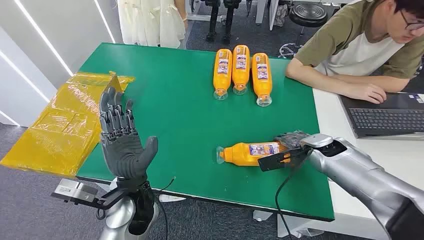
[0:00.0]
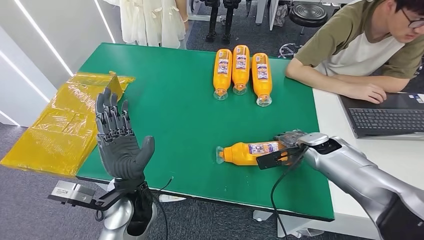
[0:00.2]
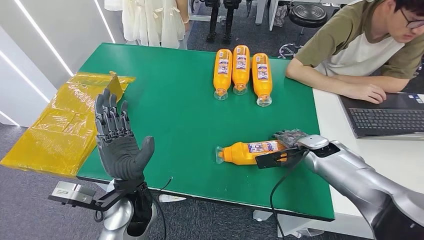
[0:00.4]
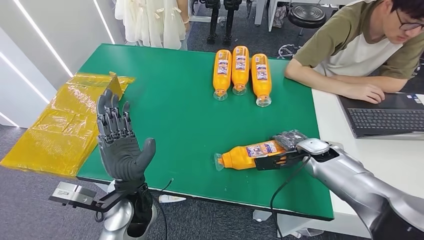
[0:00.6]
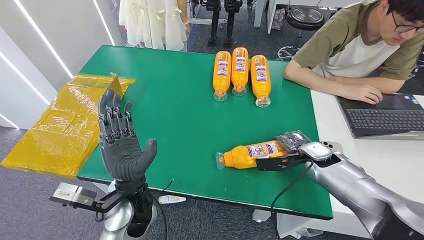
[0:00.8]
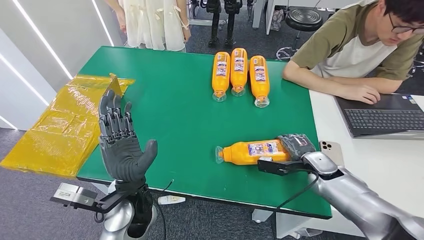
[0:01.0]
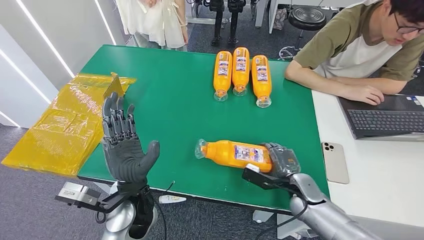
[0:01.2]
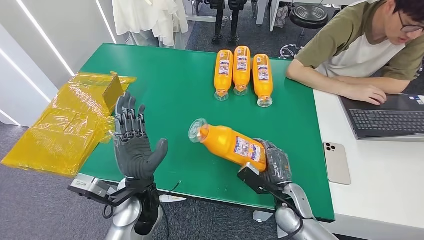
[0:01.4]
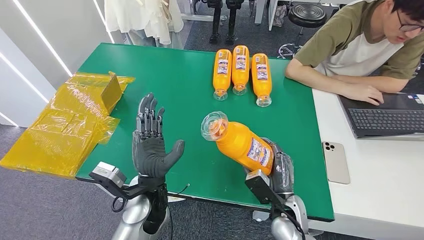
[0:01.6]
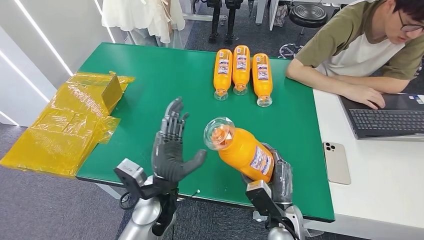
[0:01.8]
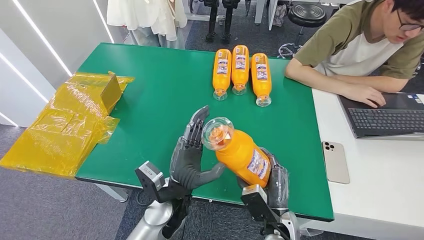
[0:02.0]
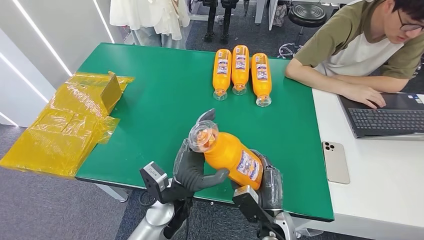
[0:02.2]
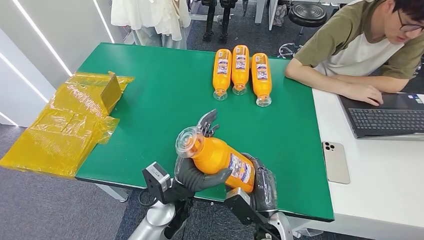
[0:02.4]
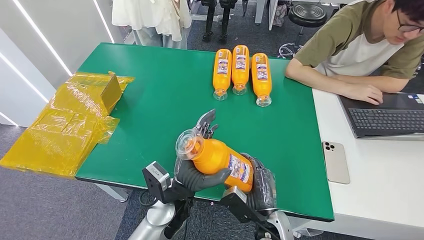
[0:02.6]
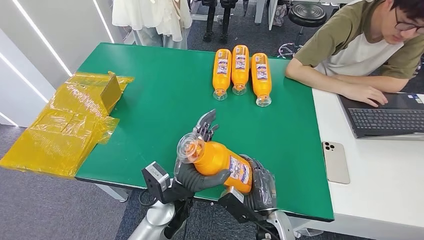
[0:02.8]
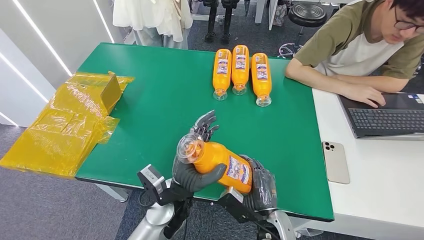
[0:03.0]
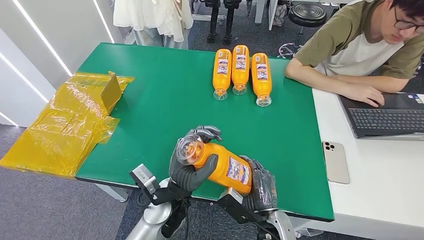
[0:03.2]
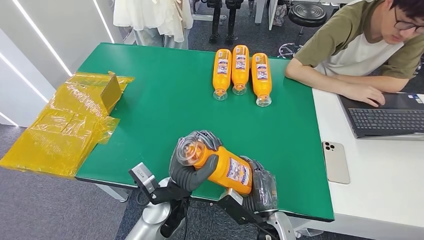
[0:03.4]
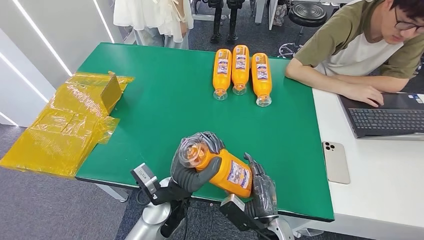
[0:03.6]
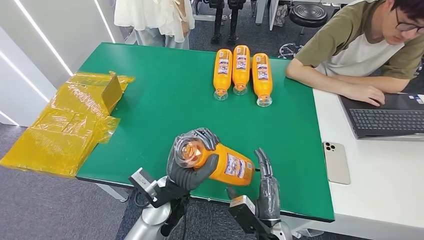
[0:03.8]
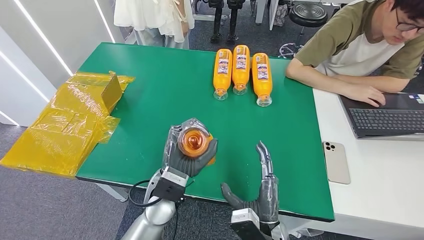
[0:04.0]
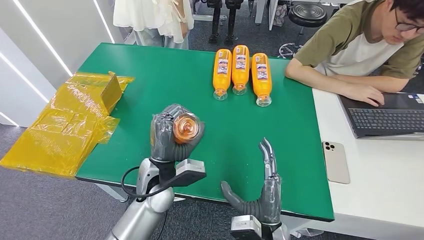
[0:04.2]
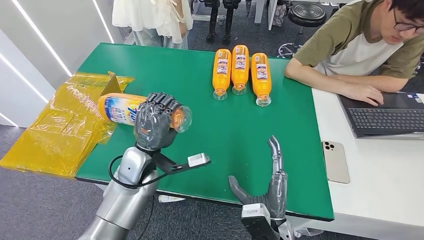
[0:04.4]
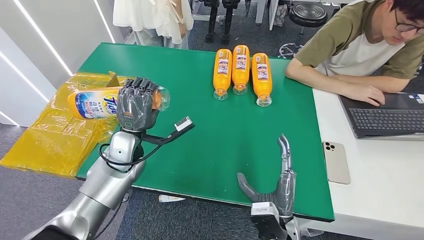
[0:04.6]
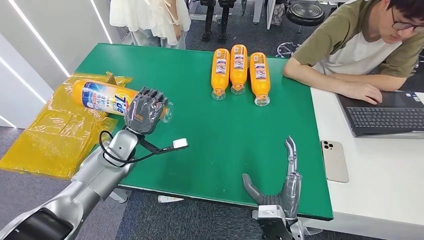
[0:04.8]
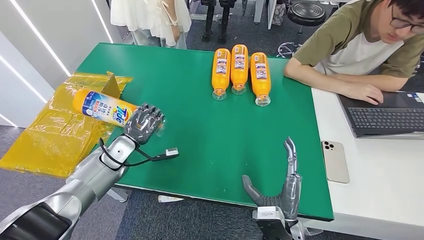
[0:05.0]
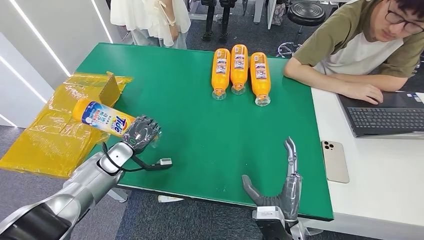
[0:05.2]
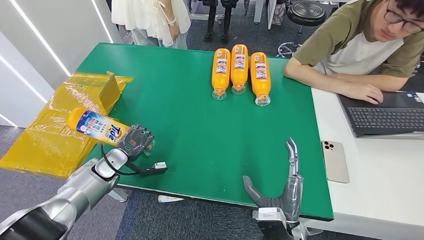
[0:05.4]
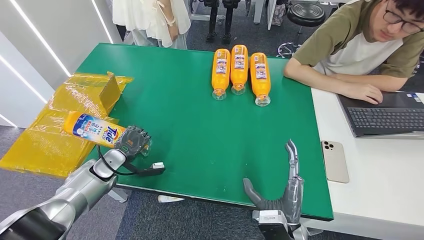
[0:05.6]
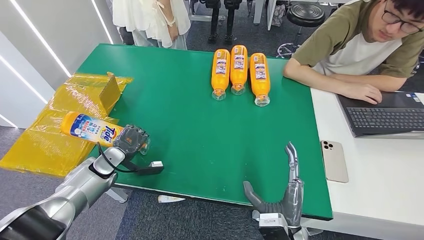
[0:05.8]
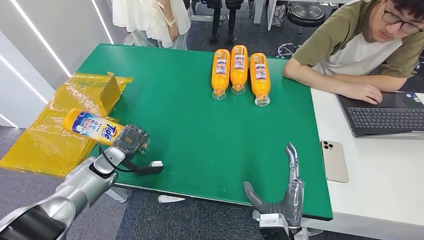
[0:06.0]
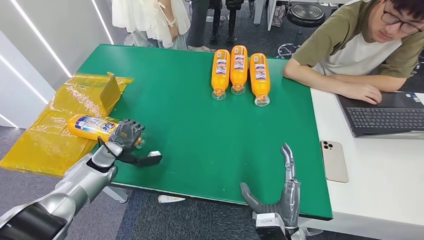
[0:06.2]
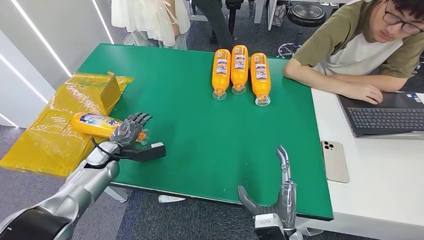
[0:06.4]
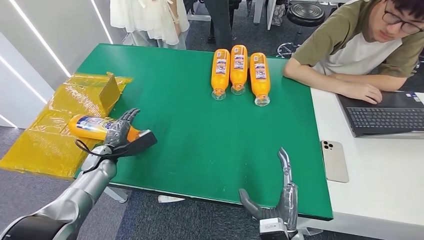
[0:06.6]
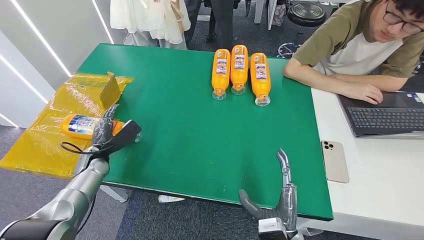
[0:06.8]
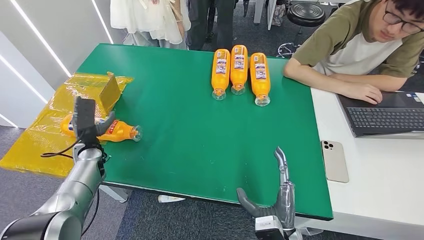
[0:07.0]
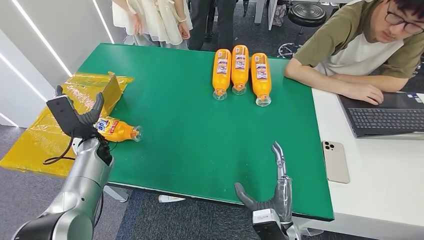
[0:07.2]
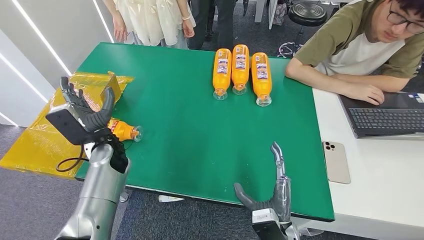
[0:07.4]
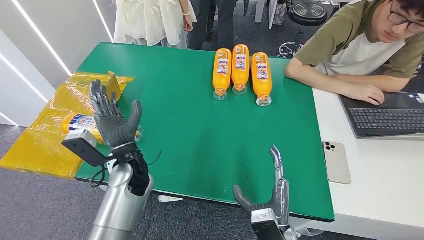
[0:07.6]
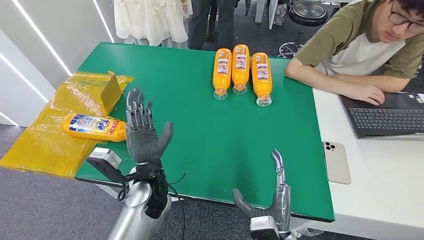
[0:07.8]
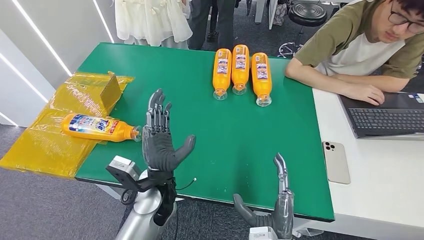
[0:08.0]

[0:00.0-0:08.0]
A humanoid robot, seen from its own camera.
Step, 0:00.0 to 0:01.8: Pick up the bottle from the table.
Step, 0:02.0 to 0:08.0: Turn the bottle to the front side.
0:01.6 to 0:03.2: The right hand ends up some 5 cm from where it was.
0:04.8 to 0:06.4: The left hand shifts about 10 cm to the left and downward.
0:06.4 to 0:08.0: The left hand is displaced to the right by roughly 25 cm.

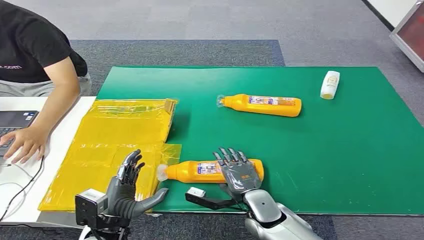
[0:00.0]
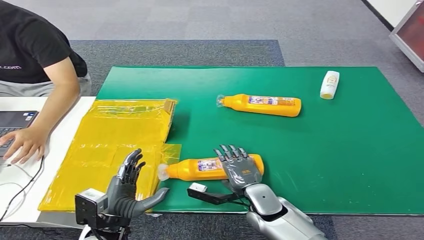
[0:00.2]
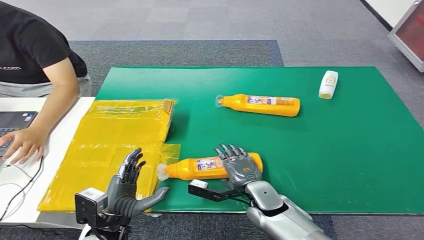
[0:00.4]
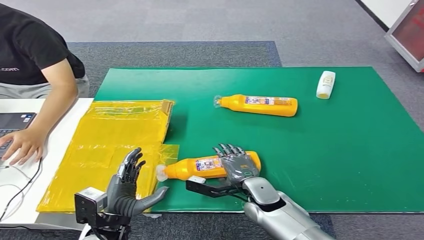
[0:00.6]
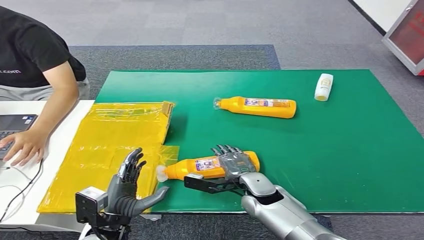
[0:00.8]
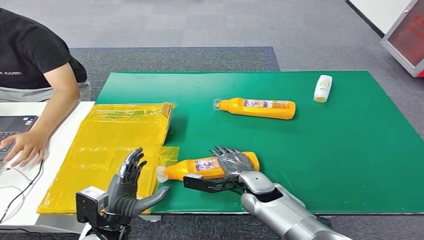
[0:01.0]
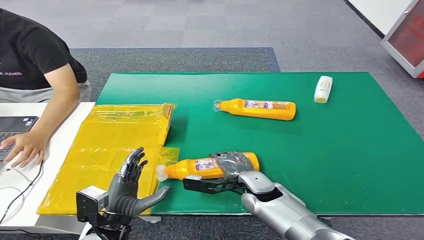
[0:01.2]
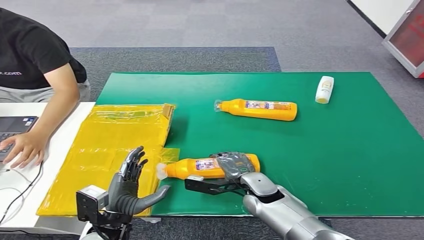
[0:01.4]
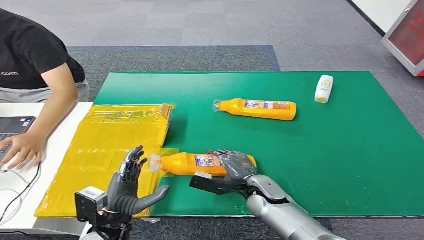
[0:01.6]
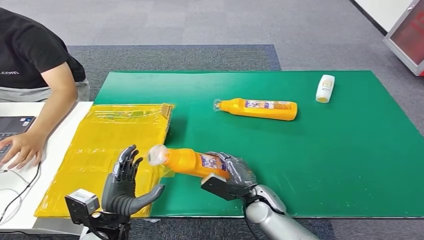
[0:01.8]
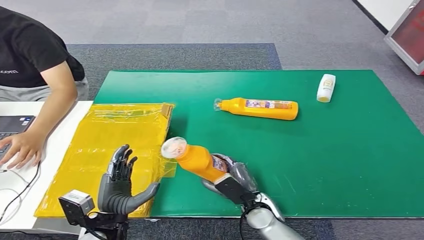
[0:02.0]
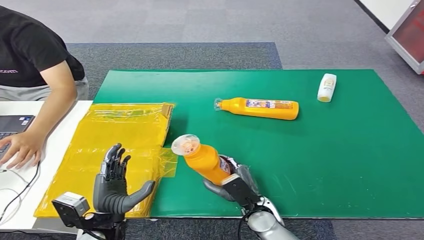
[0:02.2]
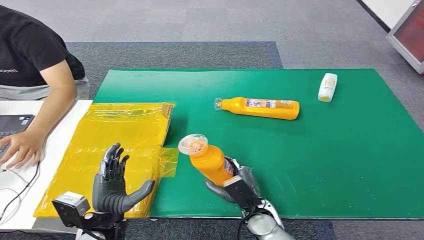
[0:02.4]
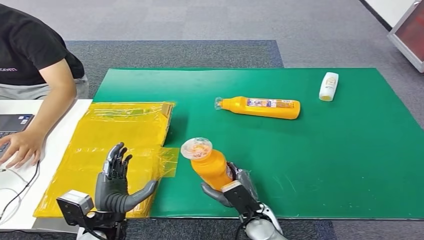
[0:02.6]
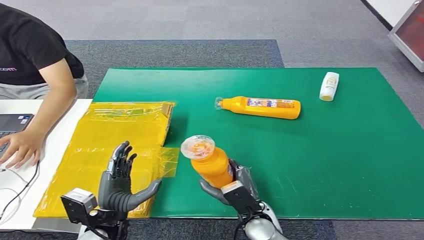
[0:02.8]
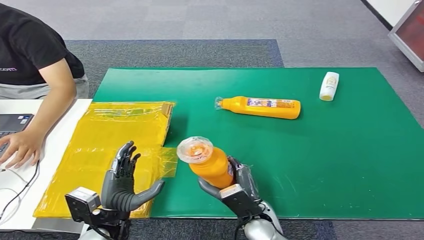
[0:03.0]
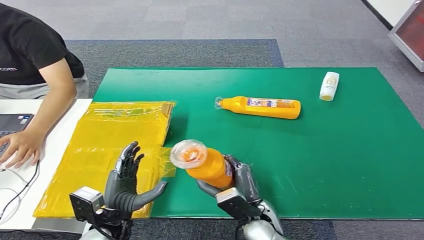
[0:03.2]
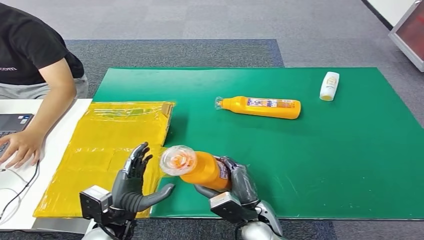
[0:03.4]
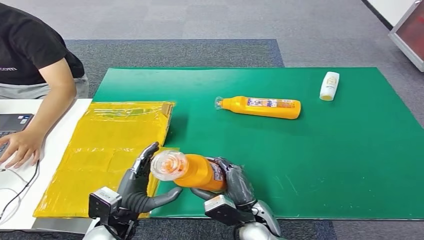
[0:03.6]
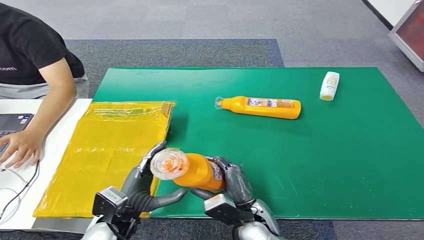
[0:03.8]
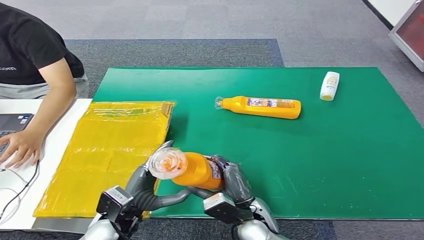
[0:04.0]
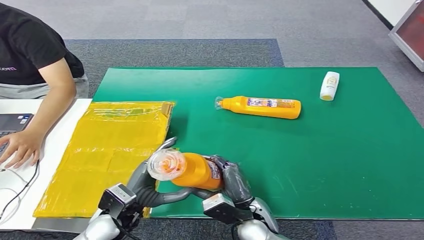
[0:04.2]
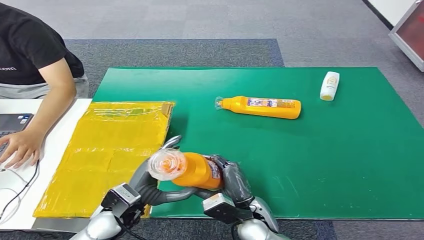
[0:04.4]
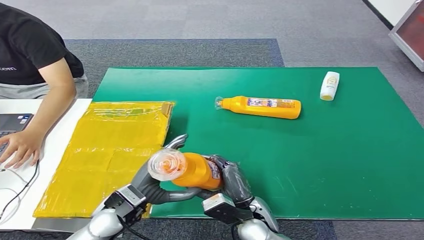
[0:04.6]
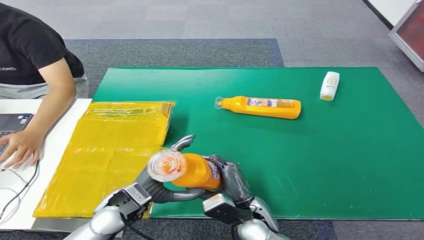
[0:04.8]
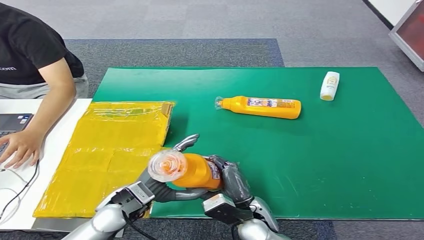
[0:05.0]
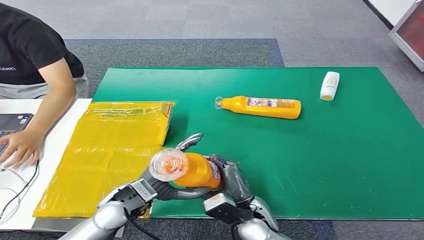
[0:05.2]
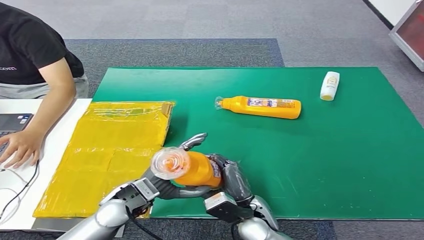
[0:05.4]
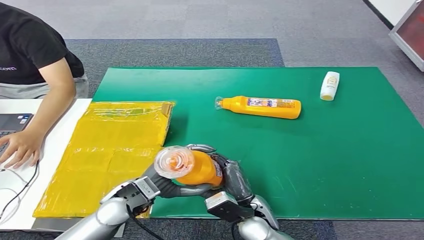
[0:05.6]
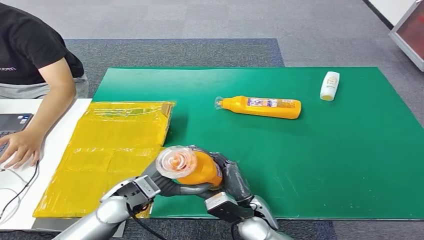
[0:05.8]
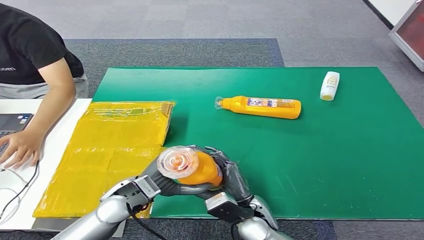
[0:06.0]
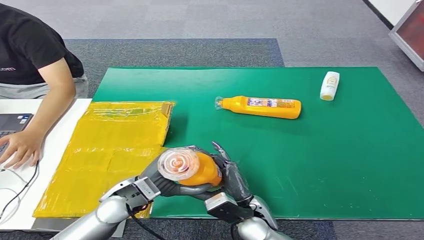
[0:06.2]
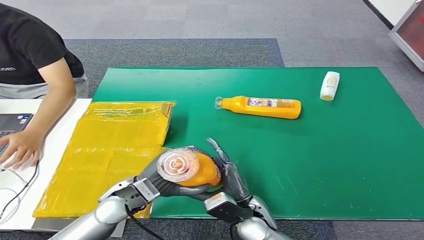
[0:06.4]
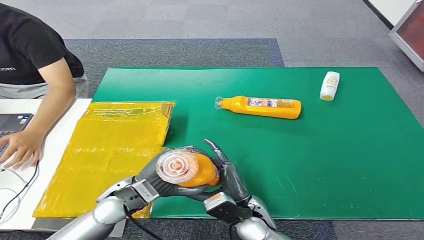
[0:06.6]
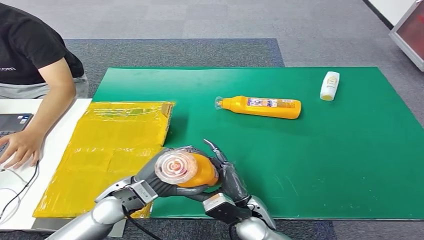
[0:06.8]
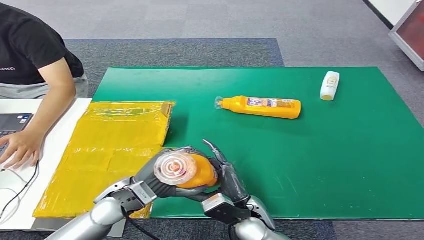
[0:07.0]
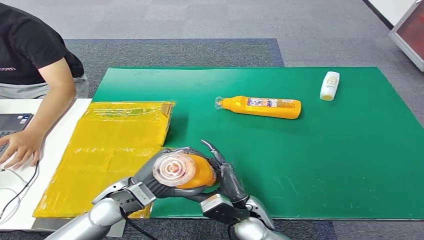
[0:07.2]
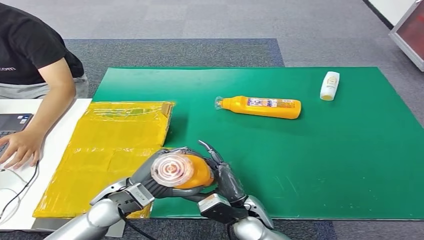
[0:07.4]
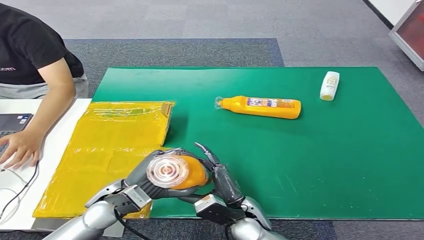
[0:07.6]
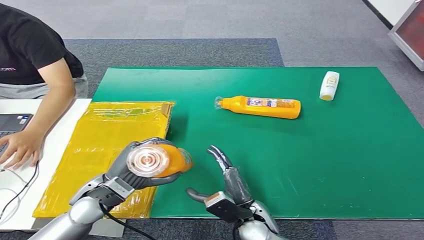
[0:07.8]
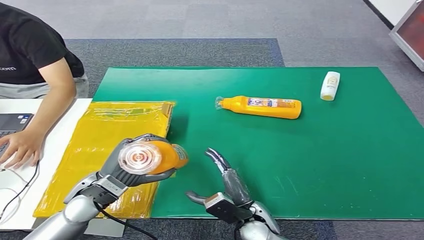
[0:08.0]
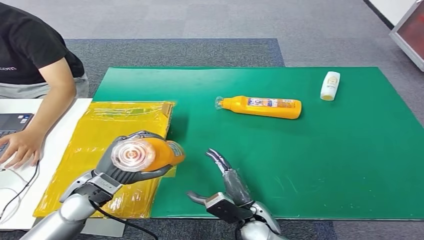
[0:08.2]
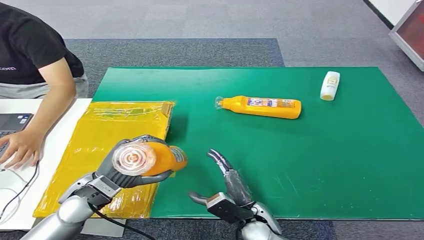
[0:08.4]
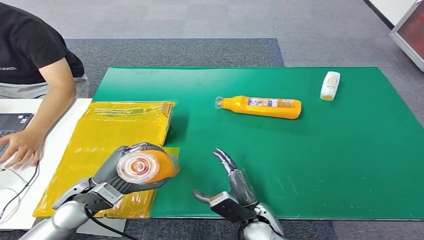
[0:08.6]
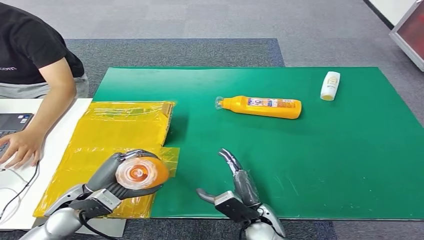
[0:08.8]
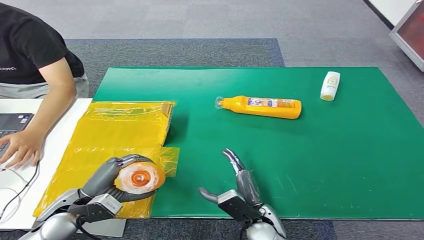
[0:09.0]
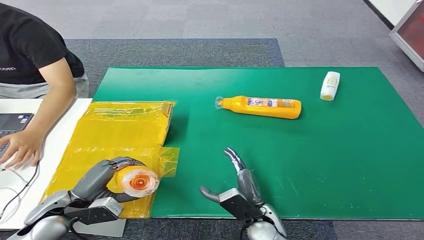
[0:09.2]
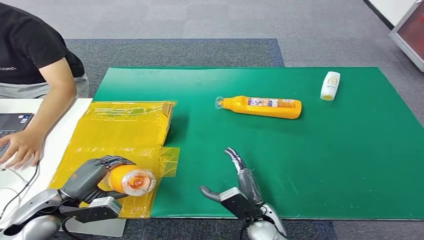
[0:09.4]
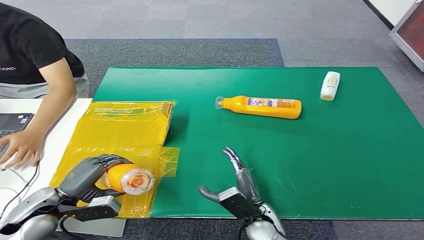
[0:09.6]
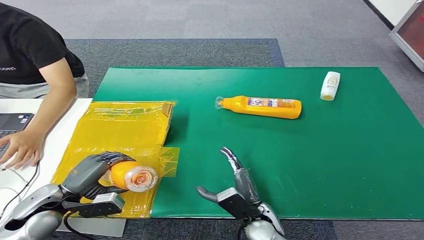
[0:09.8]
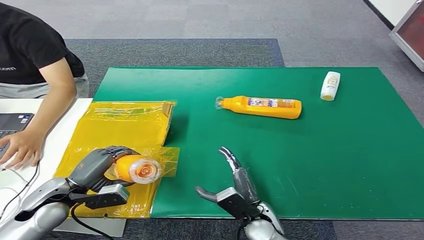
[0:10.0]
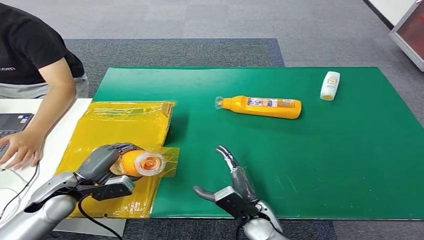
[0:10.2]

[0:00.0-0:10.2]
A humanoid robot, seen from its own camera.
Step, 0:00.0 to 0:03.0: Pick up the bottle from the table.
0:04.4 to 0:07.2: There are only small adjustments of the hands.
0:07.2 to 0:08.8: The left hand heads to the left, covering roughly 10 cm.
0:08.8 to 0:10.2: The left hand is displaced to the left by about 5 cm.
